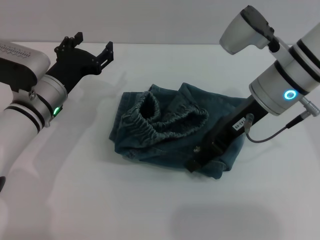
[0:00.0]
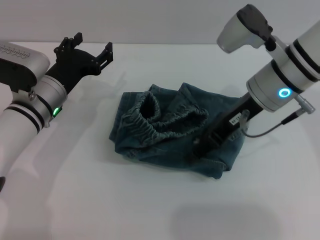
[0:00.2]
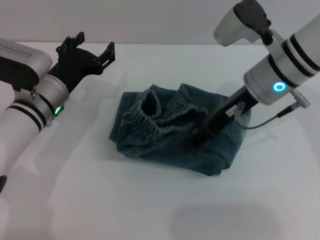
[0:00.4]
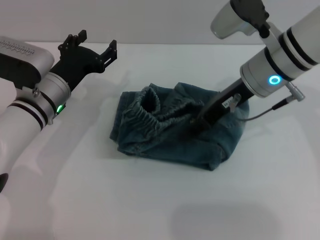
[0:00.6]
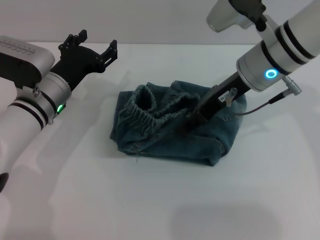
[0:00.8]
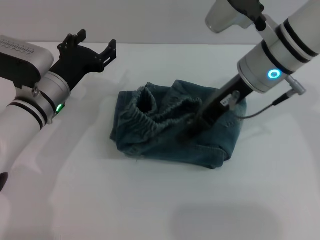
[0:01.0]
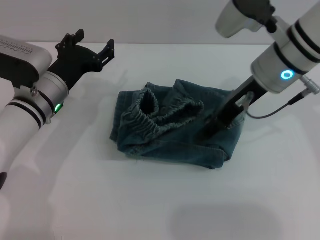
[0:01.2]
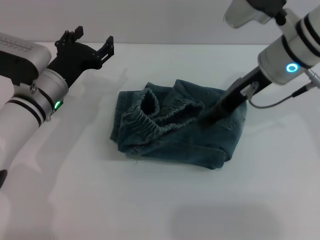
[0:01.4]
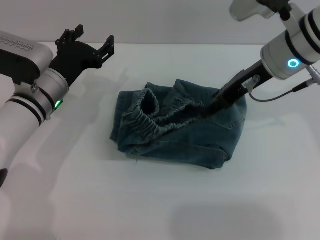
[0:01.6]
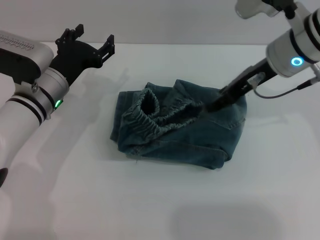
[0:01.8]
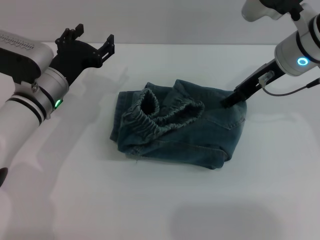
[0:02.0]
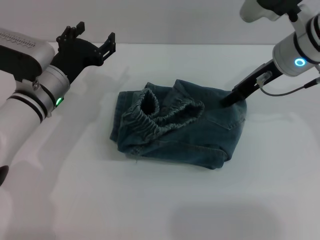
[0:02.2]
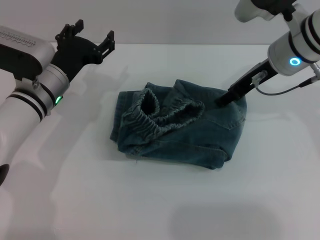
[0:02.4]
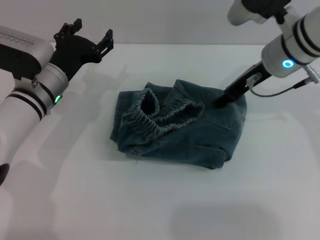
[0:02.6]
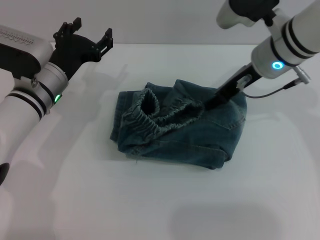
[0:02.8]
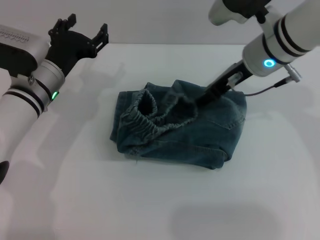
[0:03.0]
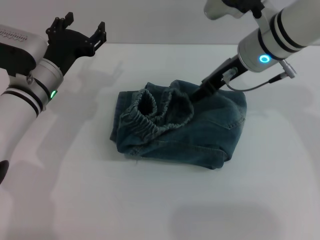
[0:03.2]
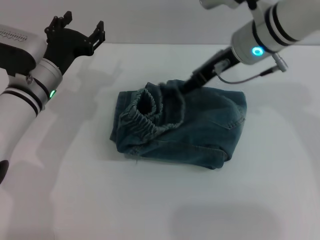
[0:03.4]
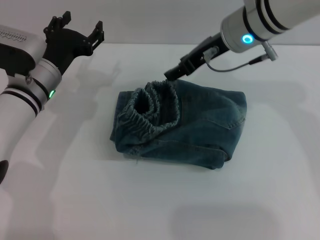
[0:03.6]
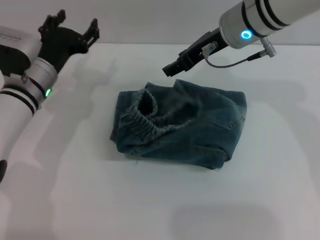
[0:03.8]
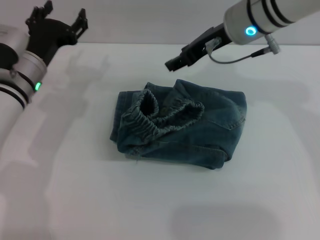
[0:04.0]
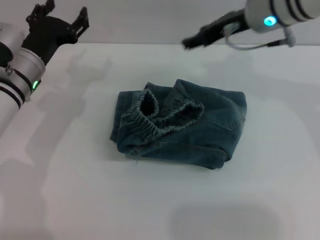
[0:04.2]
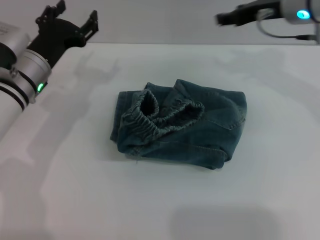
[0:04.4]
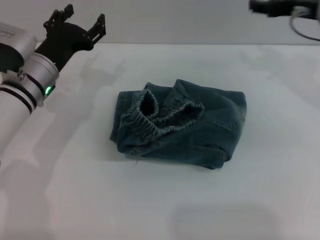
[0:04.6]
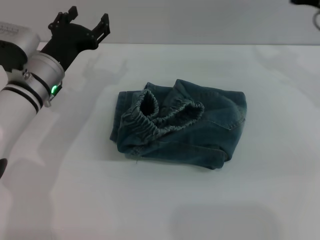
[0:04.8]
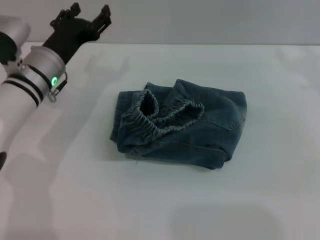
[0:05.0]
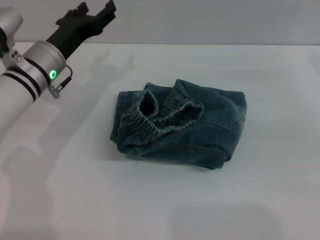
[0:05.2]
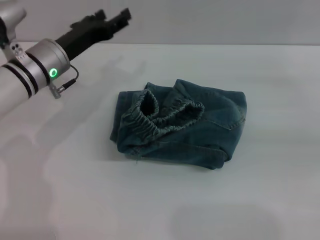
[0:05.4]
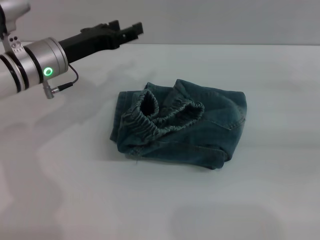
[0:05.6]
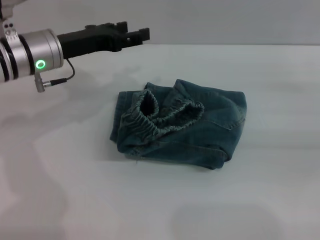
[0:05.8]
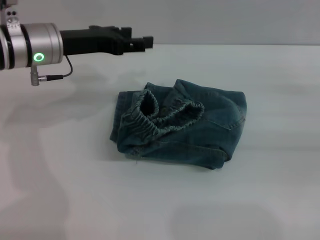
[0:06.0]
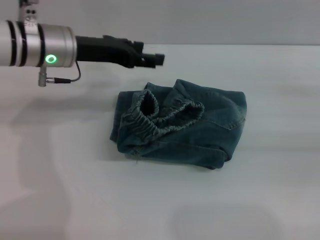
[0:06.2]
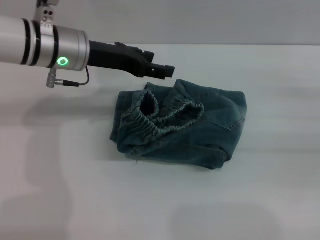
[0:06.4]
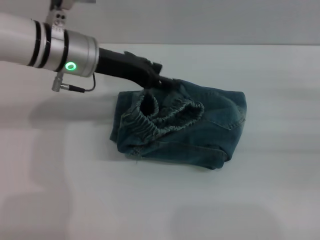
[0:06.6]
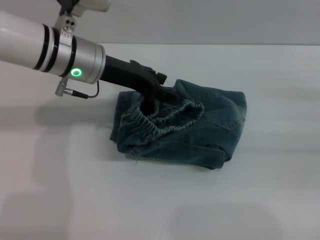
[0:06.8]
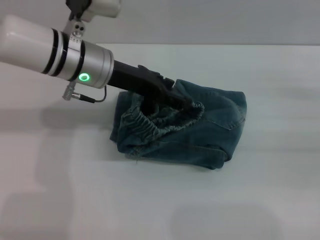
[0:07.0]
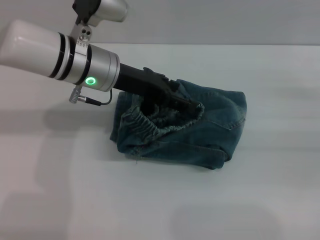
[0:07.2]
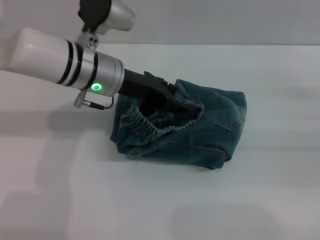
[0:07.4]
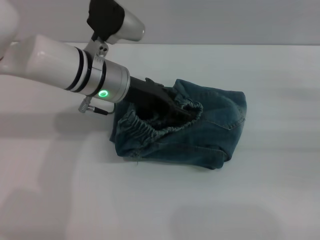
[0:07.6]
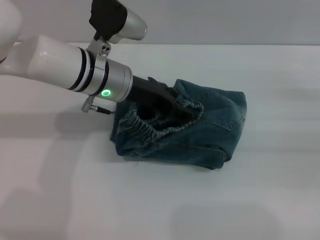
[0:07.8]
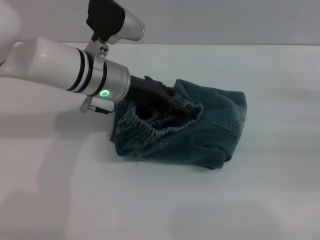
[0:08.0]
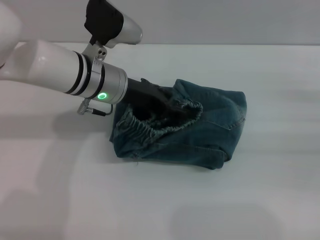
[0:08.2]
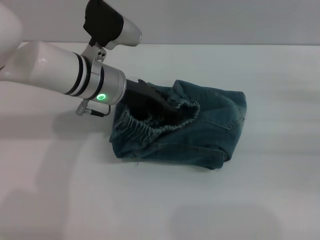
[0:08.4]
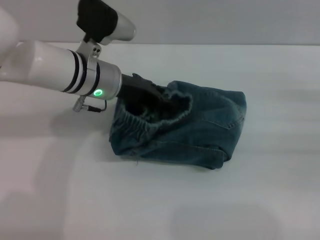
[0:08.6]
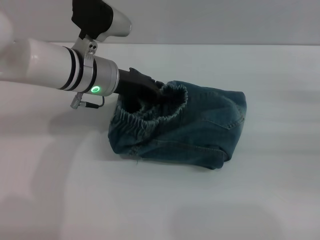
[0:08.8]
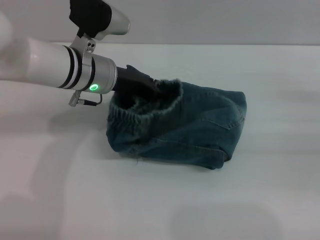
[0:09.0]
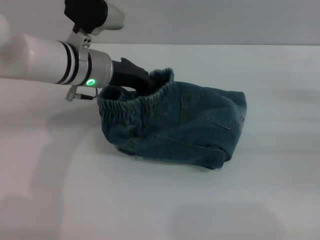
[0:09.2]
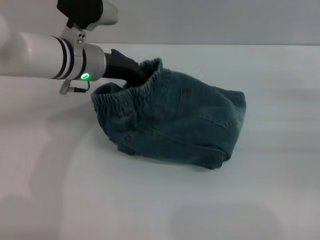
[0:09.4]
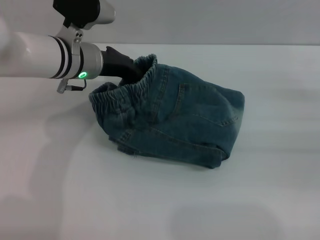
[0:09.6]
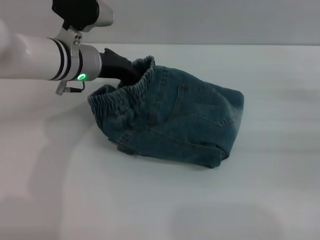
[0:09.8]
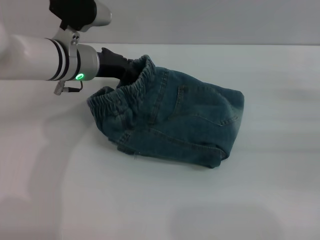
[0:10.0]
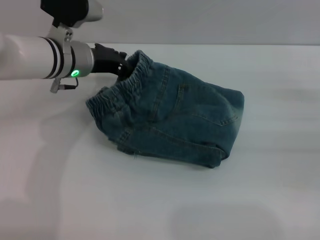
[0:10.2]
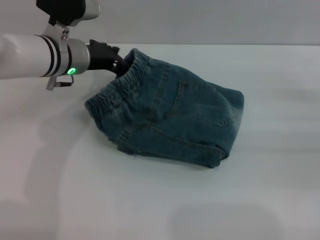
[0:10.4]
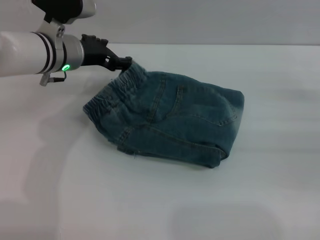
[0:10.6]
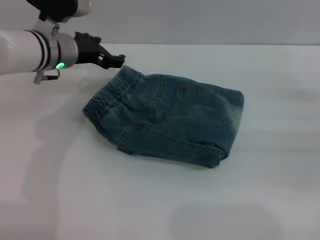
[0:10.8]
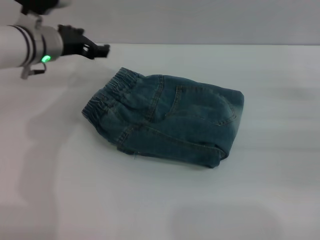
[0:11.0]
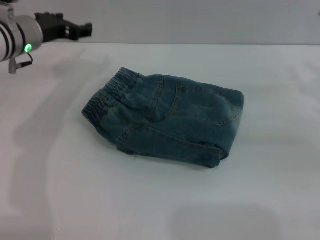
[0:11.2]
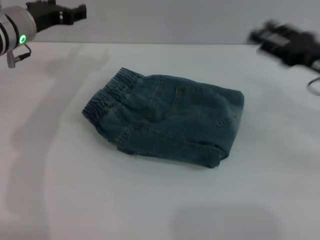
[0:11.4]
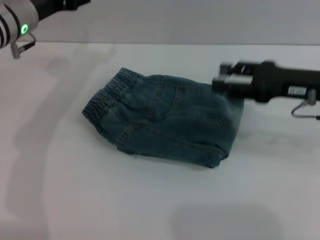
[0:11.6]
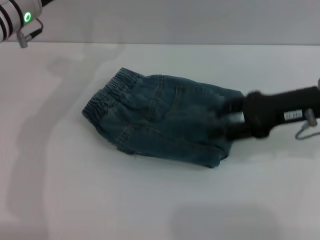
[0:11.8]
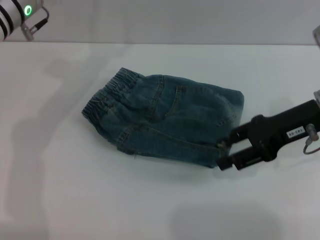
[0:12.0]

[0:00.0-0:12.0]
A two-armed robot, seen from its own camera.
Step, 0:00.0 to 0:02.0: Fold the pants from right to left with the right gripper.
0:01.6 to 0:03.0: There are only small adjustments of the grippers.
0:03.0 to 0:04.4: The right gripper shifts about 5 cm to the right.
0:04.4 to 0:06.0: The right gripper is displaced to the right, backward and downward by roughly 25 cm, while the left gripper heads upward, covering roughly 5 cm.
0:06.0 to 0:07.6: The left gripper goes about 10 cm to the right.
0:07.6 to 0:09.0: The left gripper closes up.
0:09.0 to 0:10.4: The left gripper closes and opens again.
0:10.4 to 0:12.0: The right gripper is displaced to the left and upward by roughly 15 cm, while the left gripper travels upward by about 5 cm, and opens.

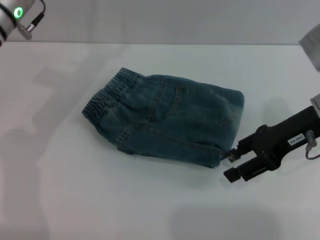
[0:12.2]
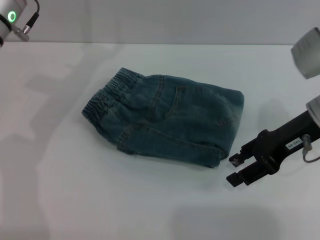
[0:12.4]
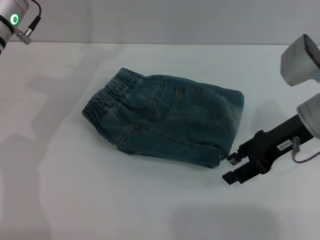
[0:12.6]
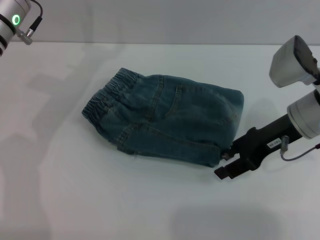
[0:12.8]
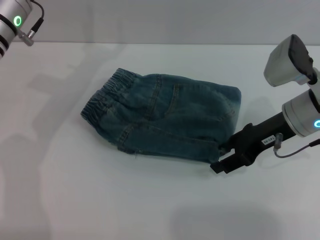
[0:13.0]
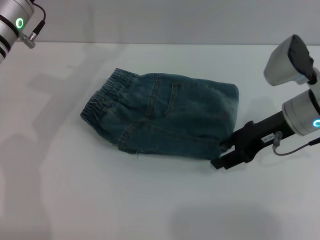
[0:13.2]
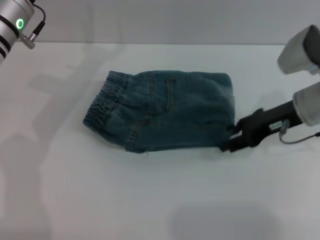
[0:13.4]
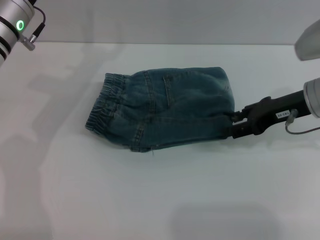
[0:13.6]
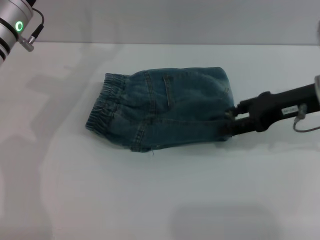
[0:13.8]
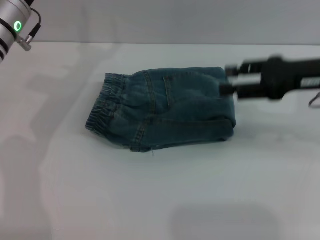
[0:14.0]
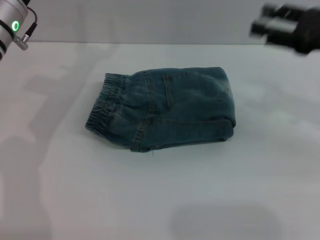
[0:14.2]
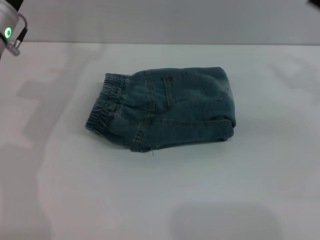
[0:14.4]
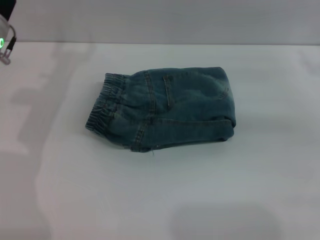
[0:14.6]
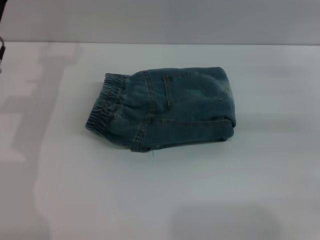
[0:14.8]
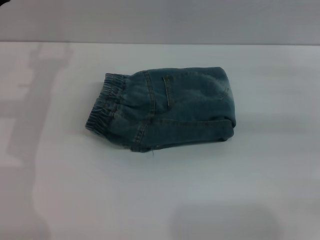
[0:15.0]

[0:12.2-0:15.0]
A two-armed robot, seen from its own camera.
0:13.6 to 0:15.0: The left gripper shifts some 5 cm to the left. The right gripper moves to the right, approximately 15 cm.

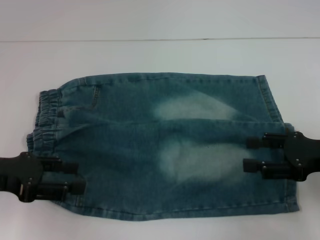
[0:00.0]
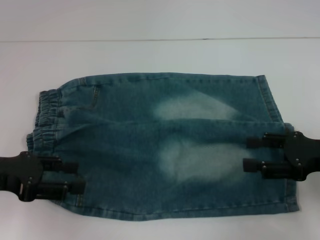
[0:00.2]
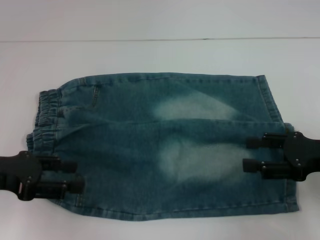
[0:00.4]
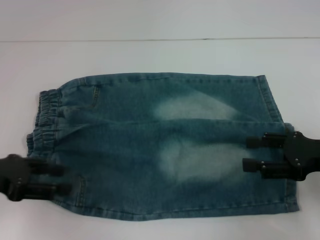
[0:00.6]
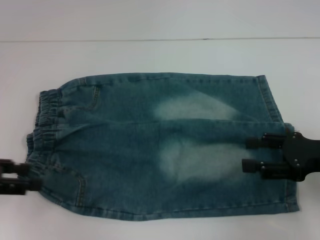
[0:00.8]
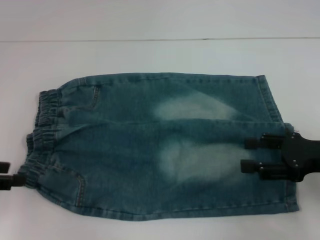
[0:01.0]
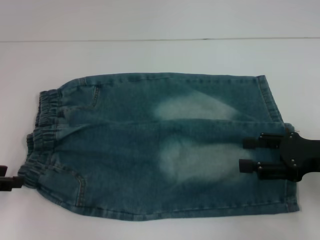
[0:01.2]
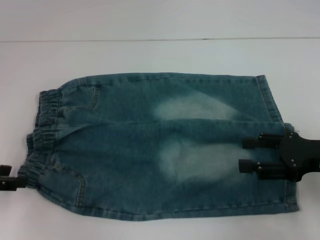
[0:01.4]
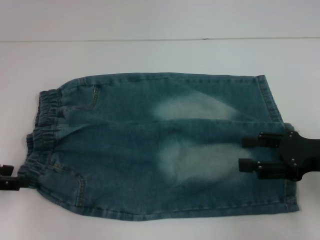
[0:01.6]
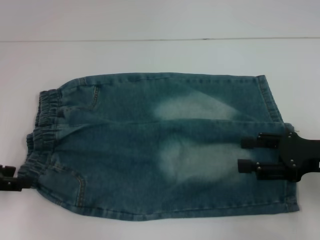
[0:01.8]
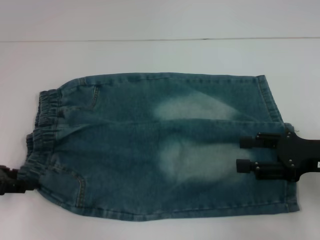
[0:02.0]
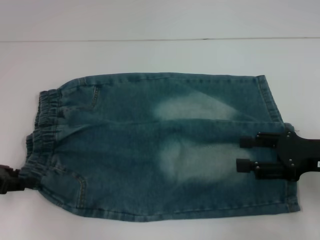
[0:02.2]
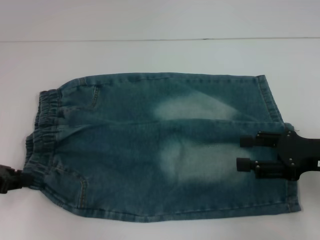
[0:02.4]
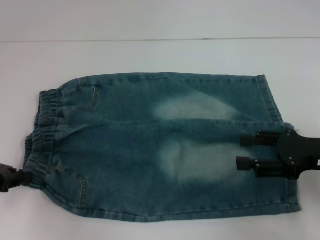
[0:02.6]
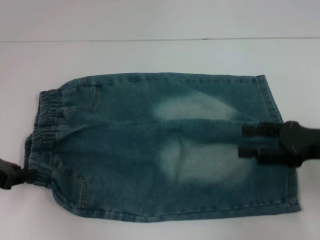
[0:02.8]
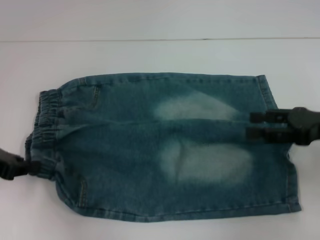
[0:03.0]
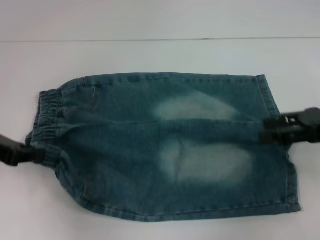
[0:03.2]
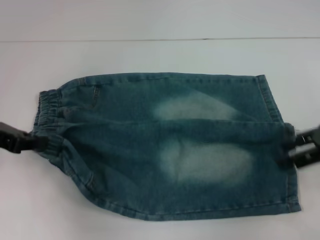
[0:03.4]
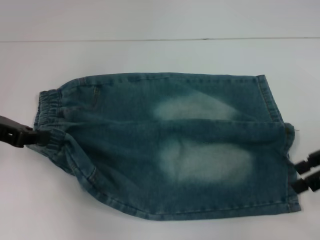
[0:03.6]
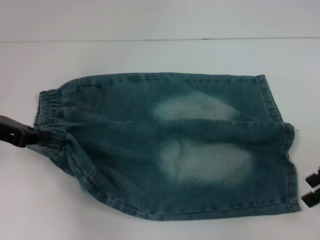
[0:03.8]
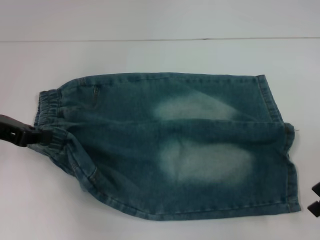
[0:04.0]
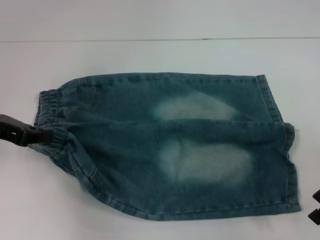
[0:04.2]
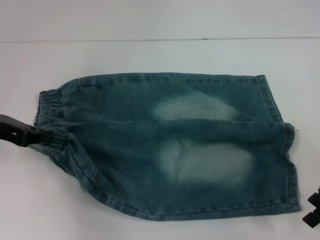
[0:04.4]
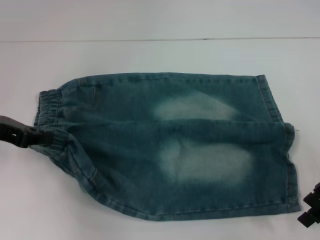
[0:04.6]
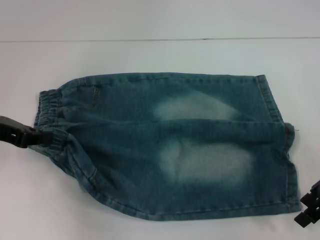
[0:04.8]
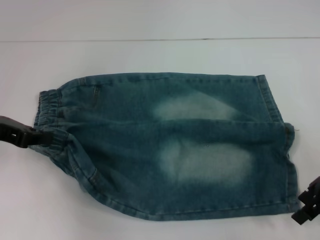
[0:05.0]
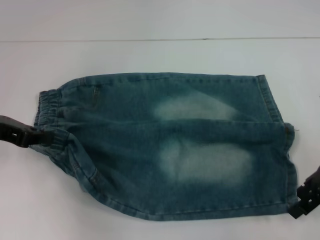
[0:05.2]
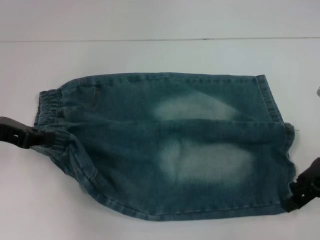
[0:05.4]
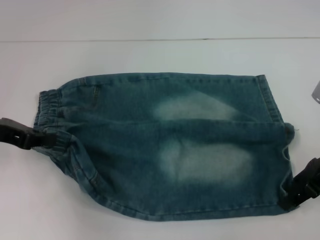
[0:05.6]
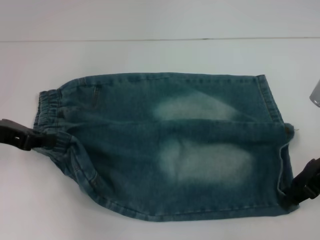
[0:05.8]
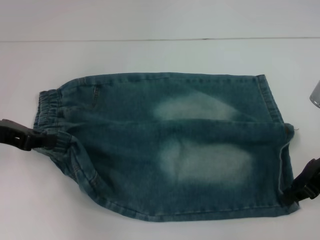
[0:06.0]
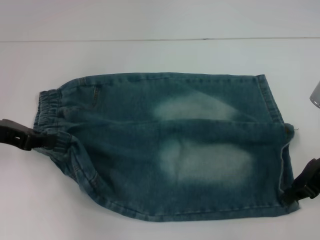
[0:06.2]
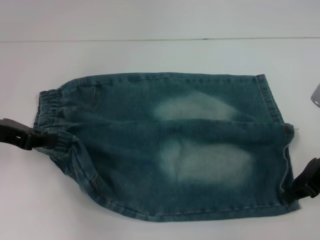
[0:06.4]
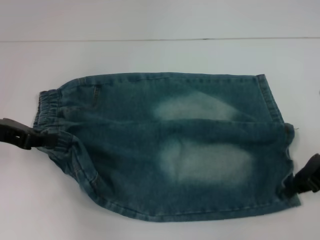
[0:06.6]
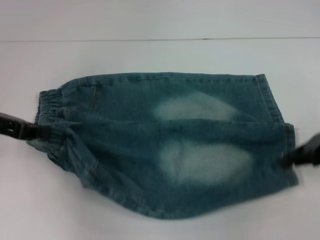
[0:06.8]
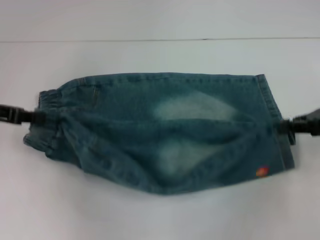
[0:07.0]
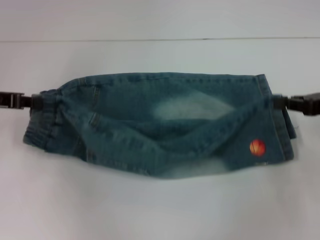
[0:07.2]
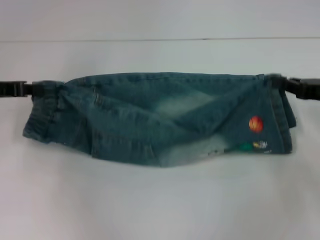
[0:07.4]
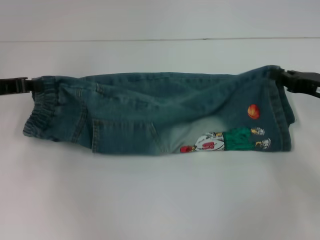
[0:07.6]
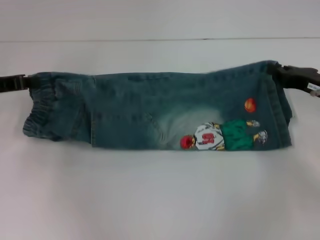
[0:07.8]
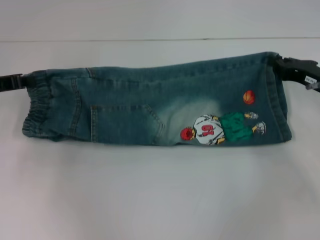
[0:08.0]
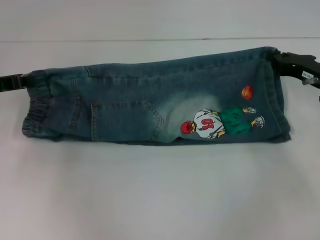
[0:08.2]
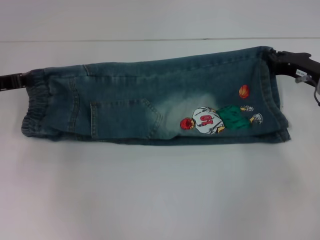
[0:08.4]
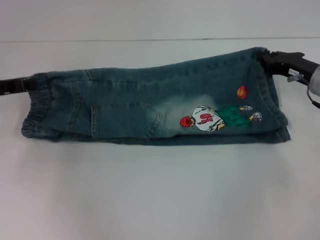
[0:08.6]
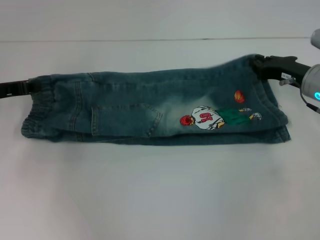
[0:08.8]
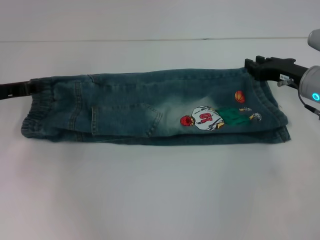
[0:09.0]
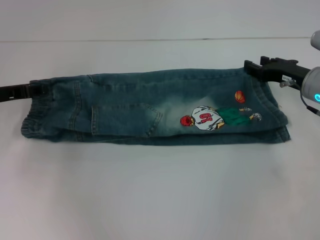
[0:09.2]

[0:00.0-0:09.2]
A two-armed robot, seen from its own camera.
Step, 0:00.0 to 0:02.8: Hold the lower left waistband with your left hand.
Step, 0:03.0 to 0:06.4: Grab the lower right pant leg with your right hand.
0:00.0 to 0:01.6: The left gripper goes approximately 5 cm to the left.
0:01.6 to 0:03.0: The left gripper closes.
0:04.6 to 0:06.2: The right gripper closes its fingers.
0:07.6 to 0:09.2: The right gripper goes roughly 5 cm to the left.
